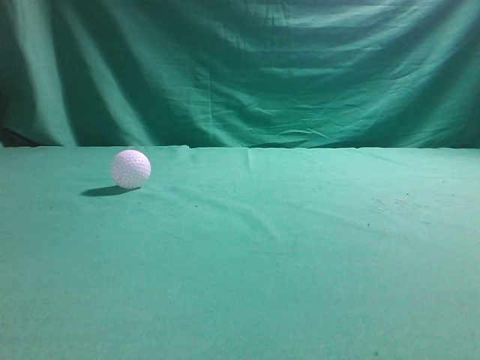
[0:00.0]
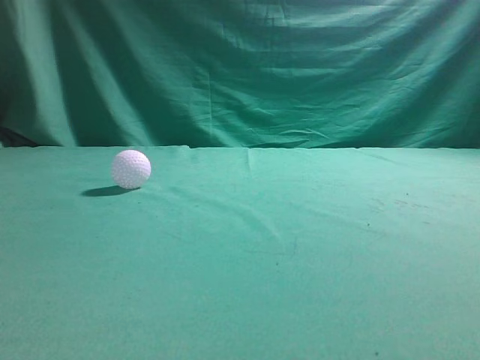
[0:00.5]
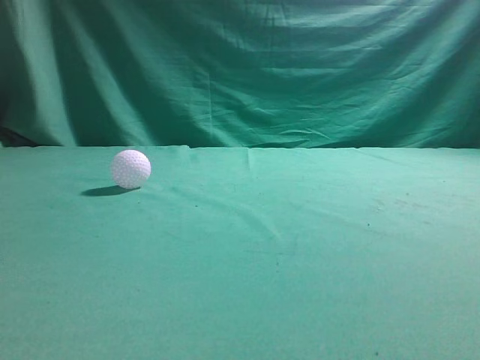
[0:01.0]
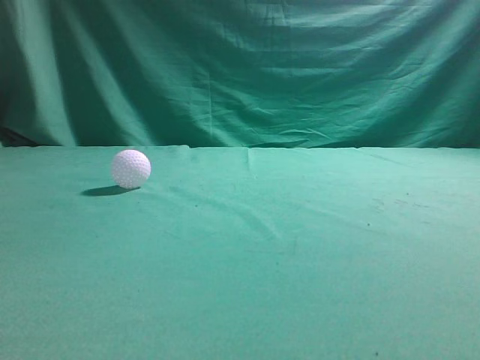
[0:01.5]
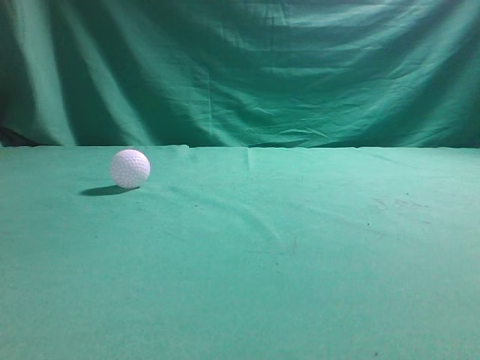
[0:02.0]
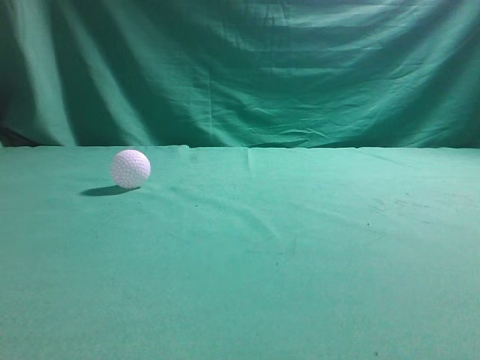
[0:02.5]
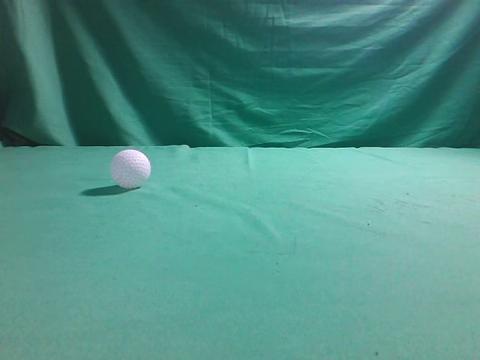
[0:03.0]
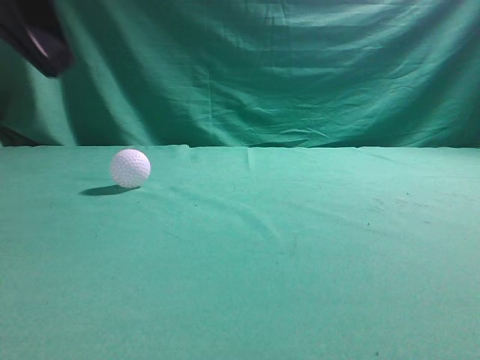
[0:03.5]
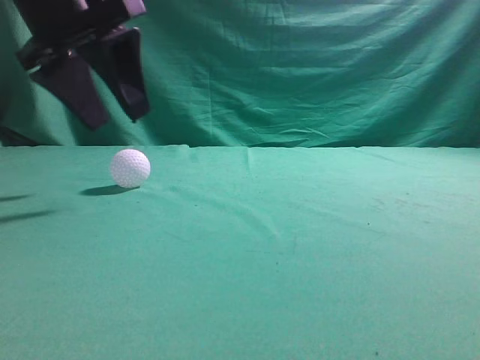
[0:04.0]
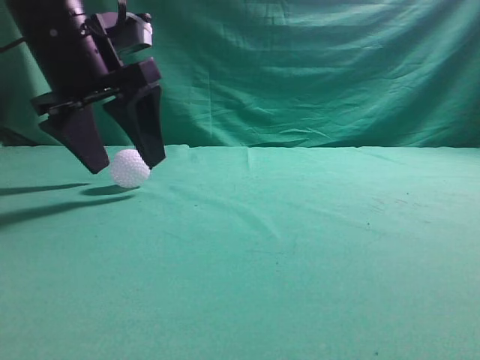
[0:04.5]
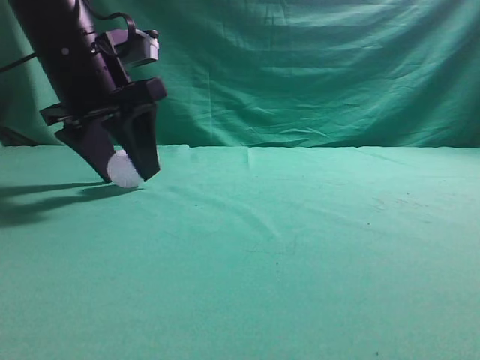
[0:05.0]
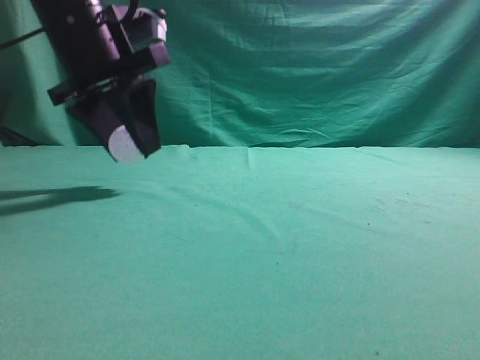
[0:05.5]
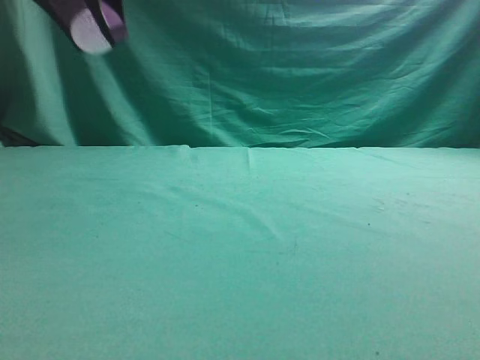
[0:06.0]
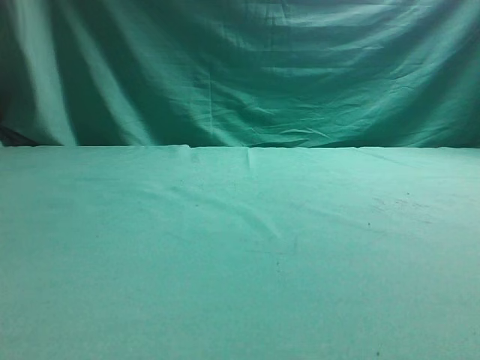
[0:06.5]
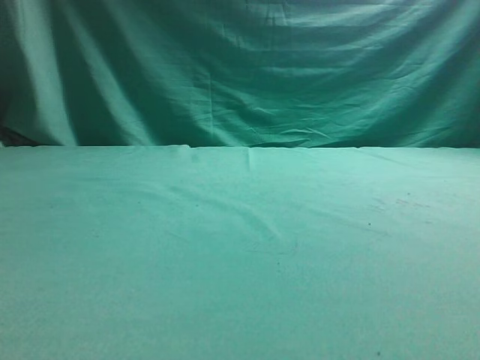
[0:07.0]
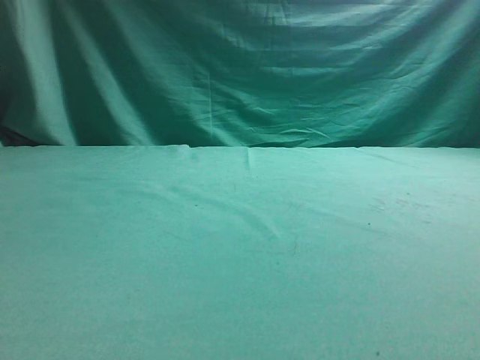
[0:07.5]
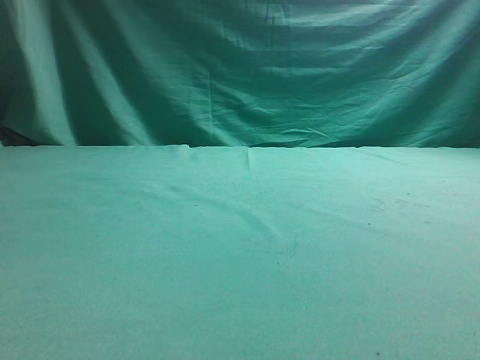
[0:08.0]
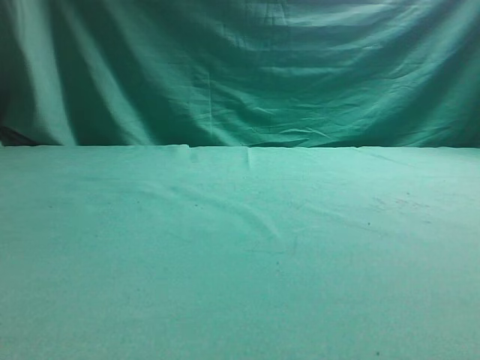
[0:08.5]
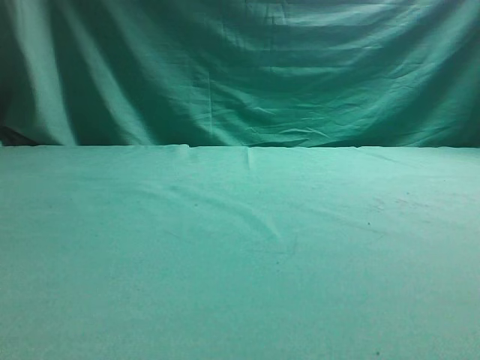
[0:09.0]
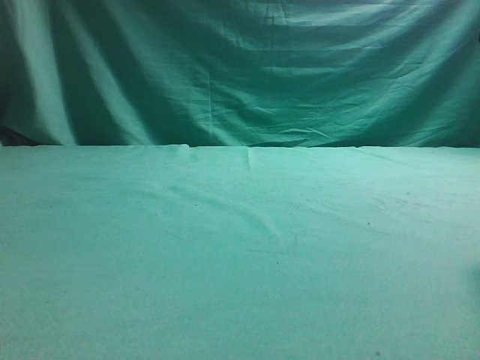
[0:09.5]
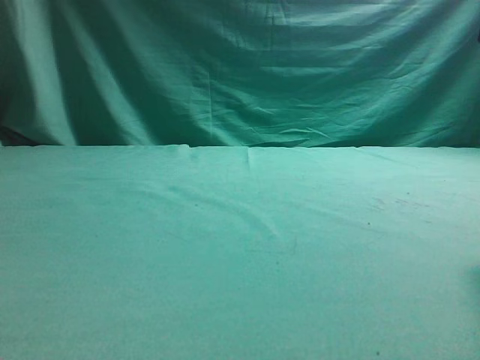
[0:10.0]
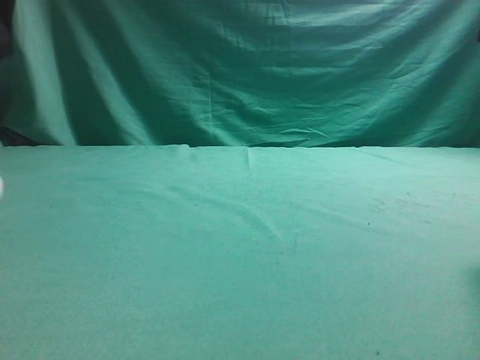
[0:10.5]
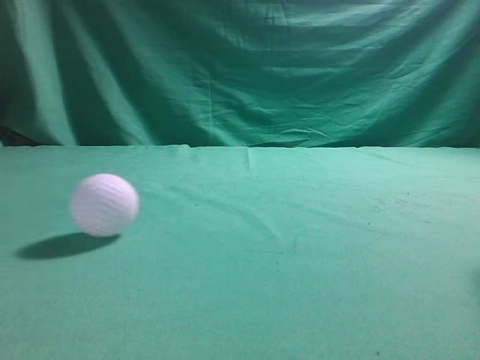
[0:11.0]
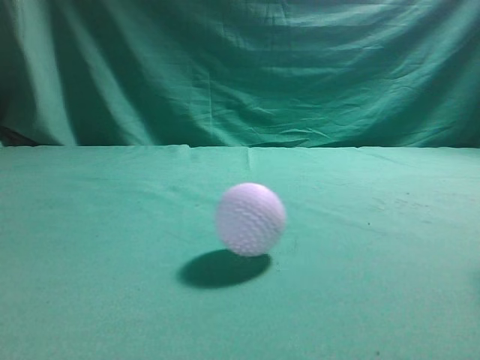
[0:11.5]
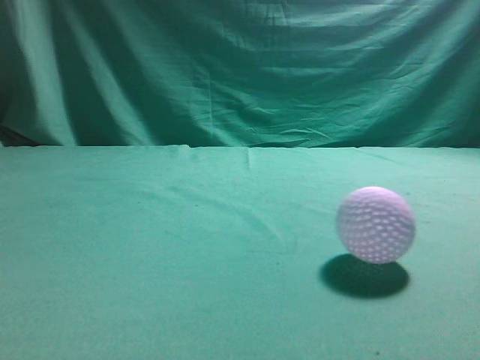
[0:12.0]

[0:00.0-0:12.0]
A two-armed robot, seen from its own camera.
Task of the whole recording: pick up the ball and place it on the plate, then pick up the ball from the plate and put it in the center of the table.
Step, 0:00.0 to 0:05.5: Grab the spherical object with your left arm.
Step, 0:06.0 to 0:10.0: Place the sphere on the white object.
0:02.0 to 0:04.0: The left gripper moves forward and to the right, roughly 30 cm, and opens its fingers.
0:04.0 to 0:06.0: The left gripper moves upward, roughly 10 cm.
0:06.0 to 0:08.0: The left gripper is displaced to the left and backward by approximately 15 cm.

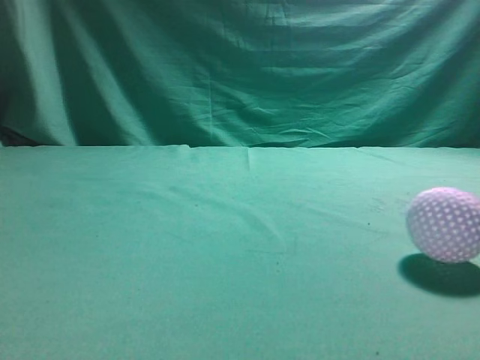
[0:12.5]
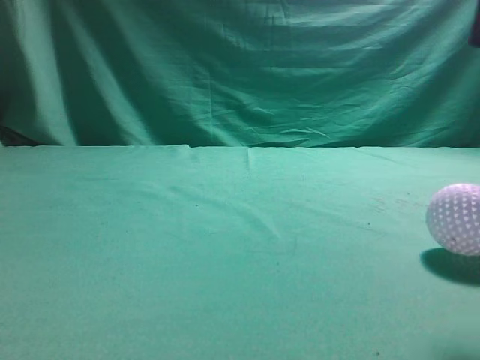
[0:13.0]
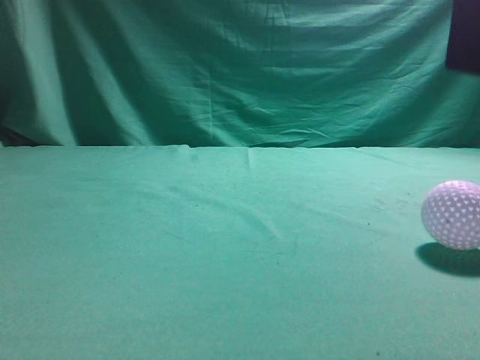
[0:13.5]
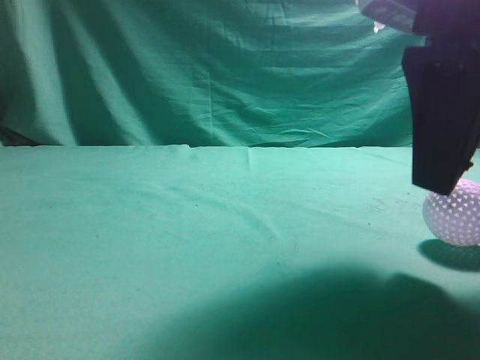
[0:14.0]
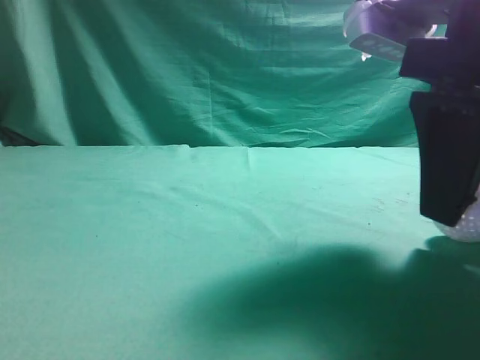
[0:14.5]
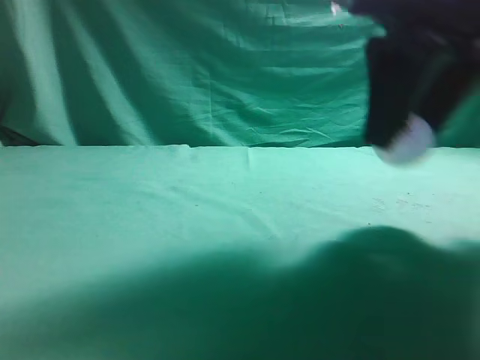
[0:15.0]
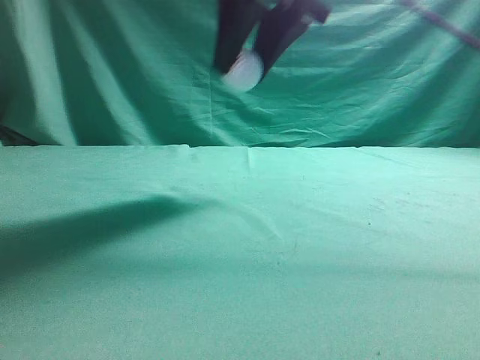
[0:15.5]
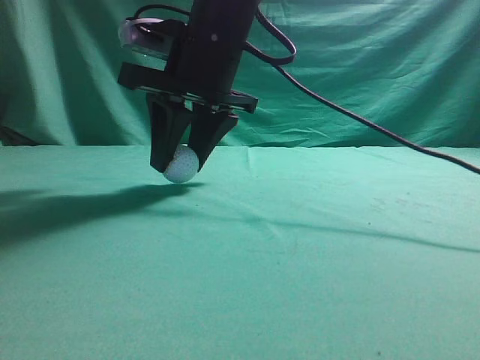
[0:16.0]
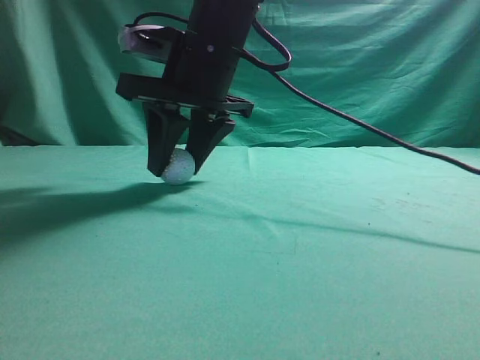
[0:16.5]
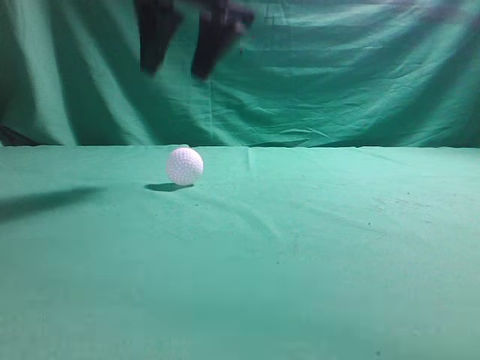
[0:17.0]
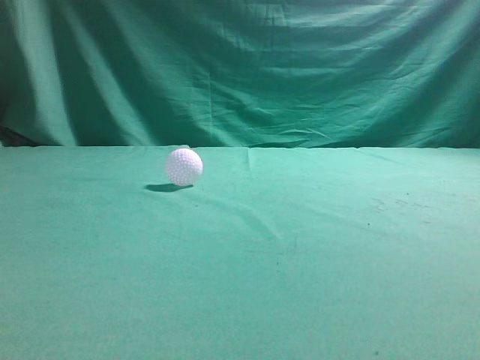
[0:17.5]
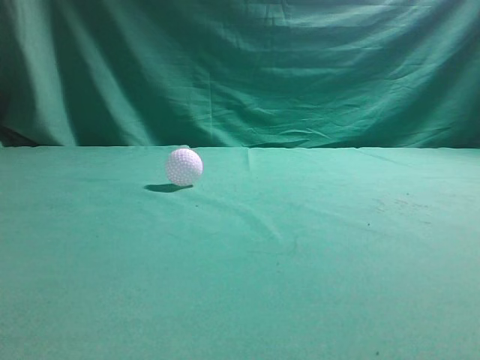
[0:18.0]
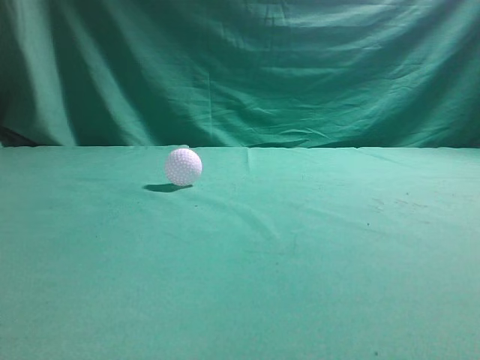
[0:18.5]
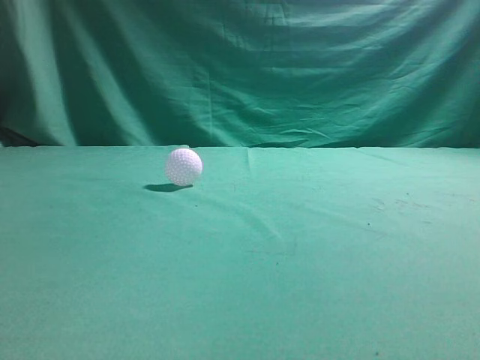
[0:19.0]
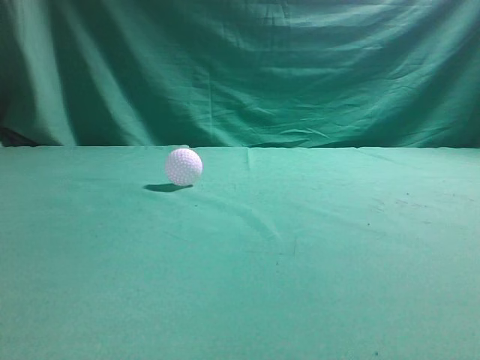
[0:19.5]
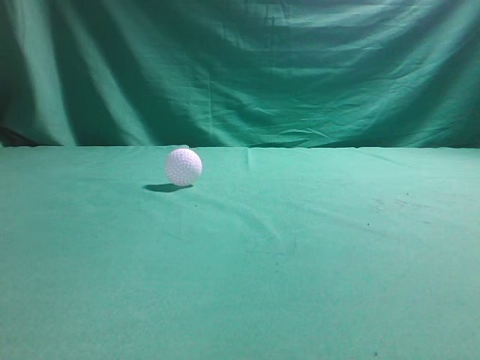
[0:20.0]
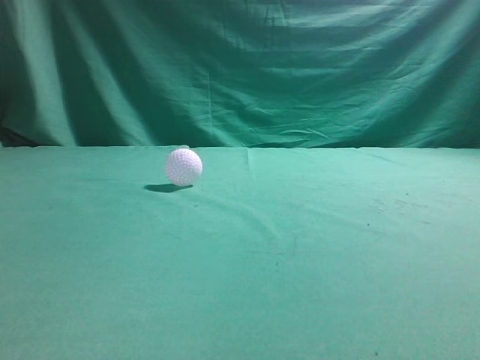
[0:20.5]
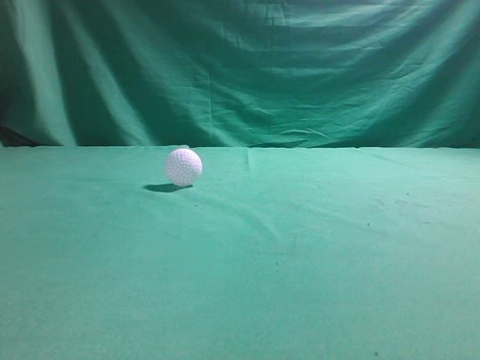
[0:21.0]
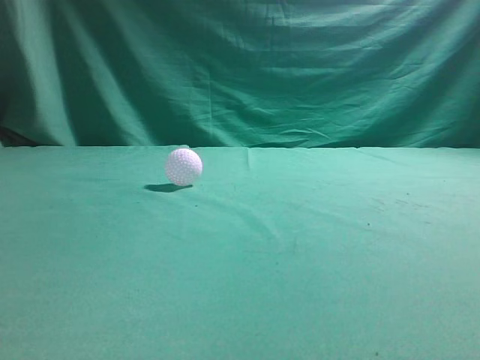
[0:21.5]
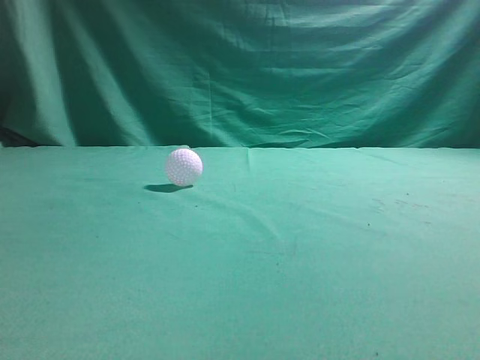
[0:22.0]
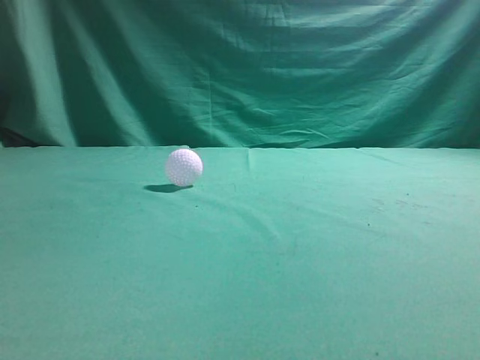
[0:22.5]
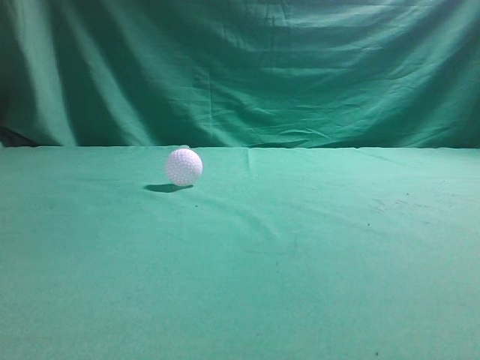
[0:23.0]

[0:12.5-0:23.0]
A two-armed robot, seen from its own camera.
Task of the whole recording: pick up the ball and place it on the plate, then pick up the ball from the plate and put it in the center of the table.
Step, 0:12.5 to 0:14.5: Grab the rolling spherical object.
Step, 0:15.0 to 0:16.5: Put the picked-up object on the table.
0:12.5 to 0:14.5: The right gripper goes some 10 cm downward and to the left, and opens up.
0:14.5 to 0:16.5: The right gripper shifts approximately 25 cm to the left and forward.
0:16.5 to 0:19.0: The left gripper goes roughly 15 cm downward and backward; the right gripper shifts approximately 40 cm backward and to the right, and closes its fingers.
